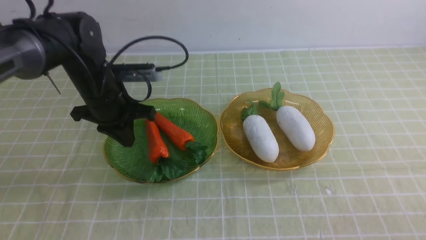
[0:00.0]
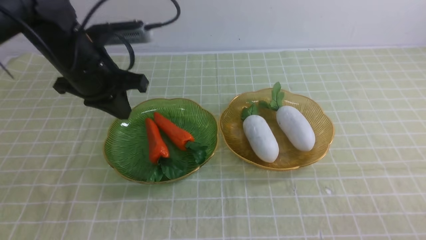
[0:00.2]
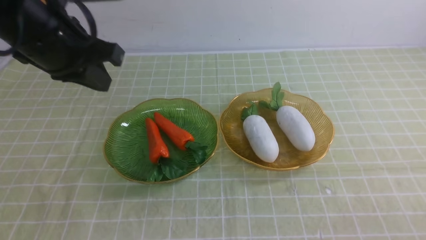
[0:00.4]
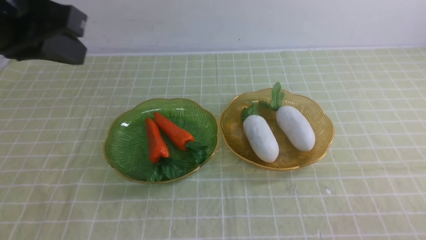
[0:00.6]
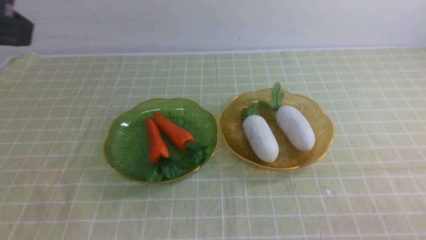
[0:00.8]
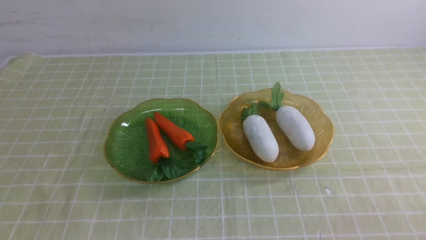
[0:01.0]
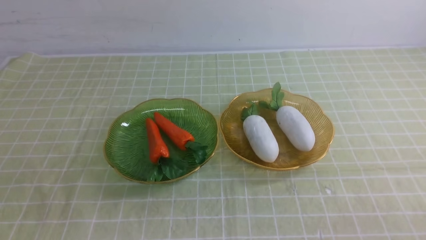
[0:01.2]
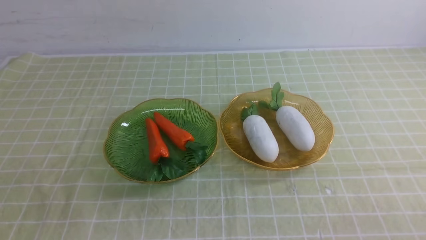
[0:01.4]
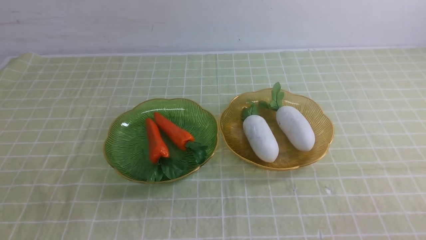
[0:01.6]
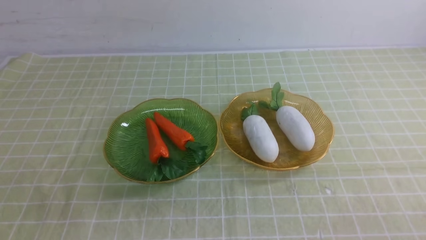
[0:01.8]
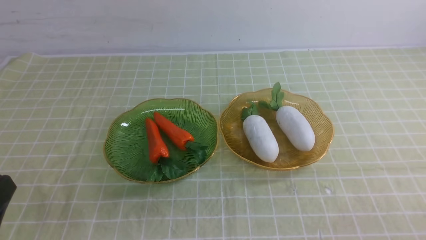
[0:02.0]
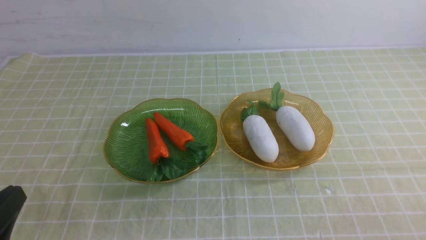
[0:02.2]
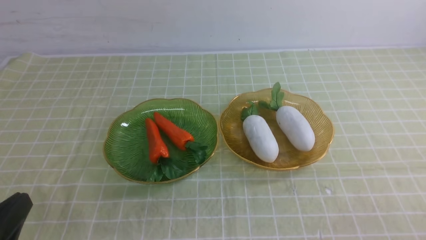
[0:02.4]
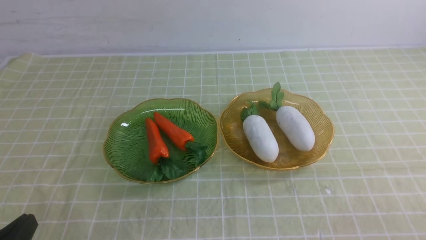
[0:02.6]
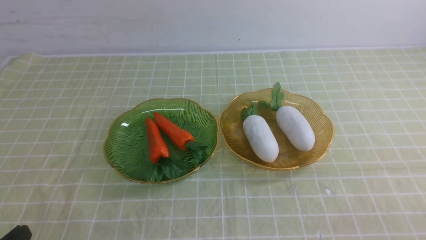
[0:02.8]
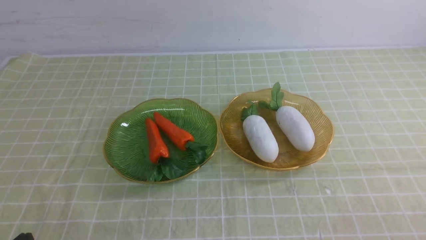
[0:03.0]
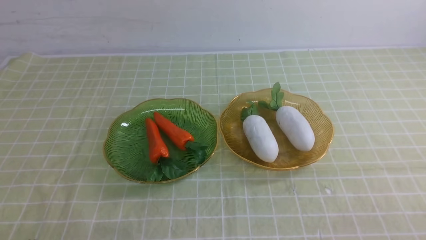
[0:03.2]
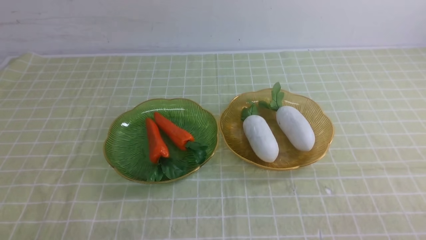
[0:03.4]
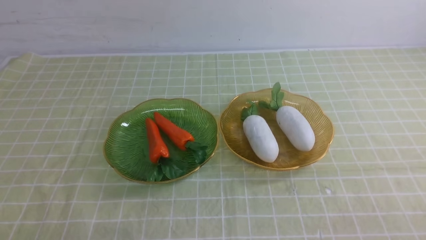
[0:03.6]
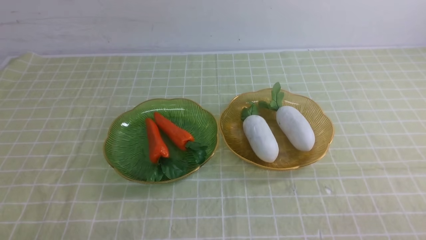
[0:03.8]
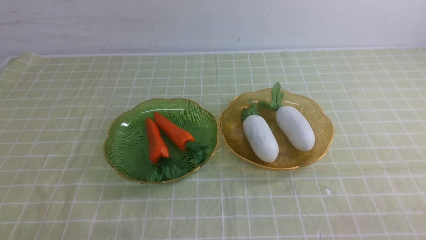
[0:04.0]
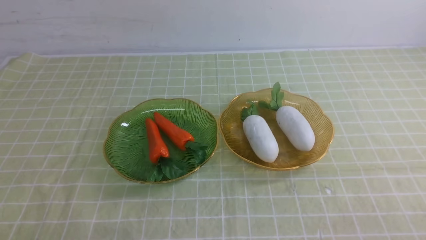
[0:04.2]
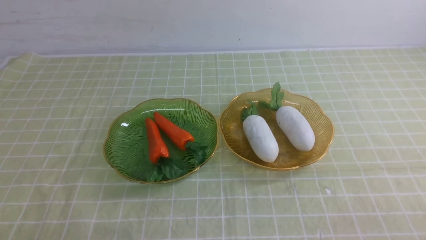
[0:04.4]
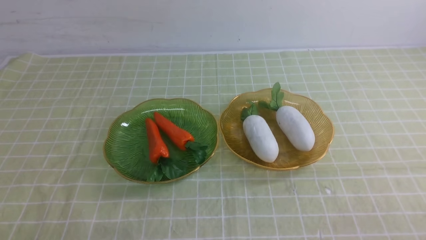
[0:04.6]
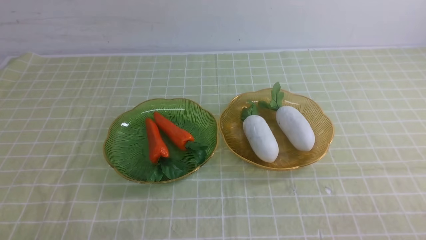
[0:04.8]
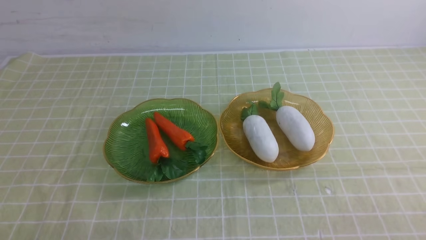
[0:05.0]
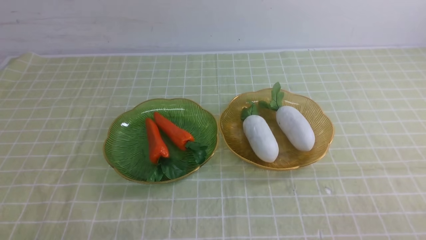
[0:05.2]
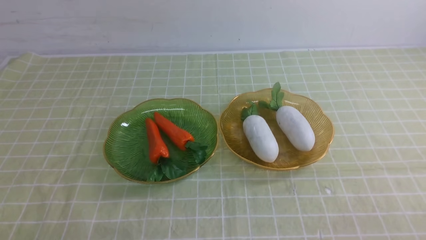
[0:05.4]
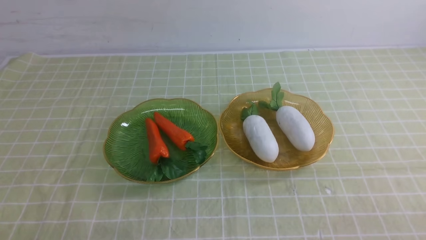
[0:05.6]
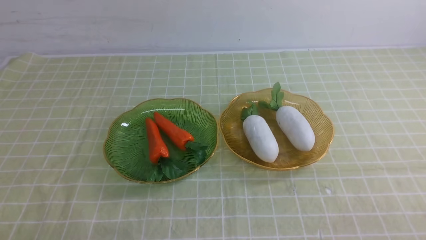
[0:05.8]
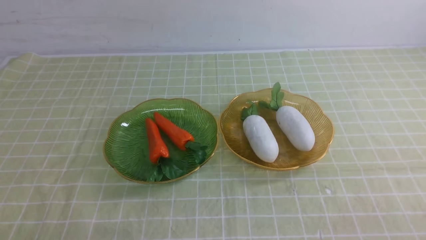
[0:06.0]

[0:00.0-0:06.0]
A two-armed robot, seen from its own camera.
0:00.0 to 0:01.6: The left gripper travels backward by roughly 30 cm.
0:04.4 to 0:06.0: The two grippers keep their place.
